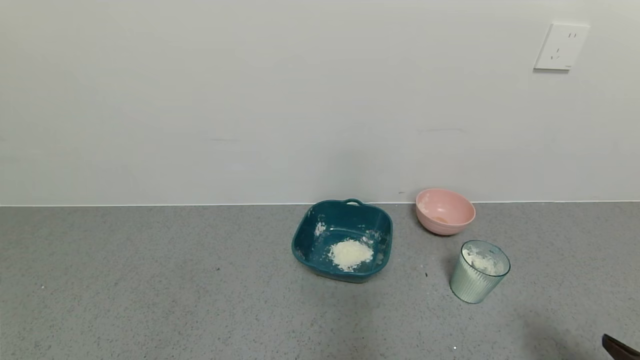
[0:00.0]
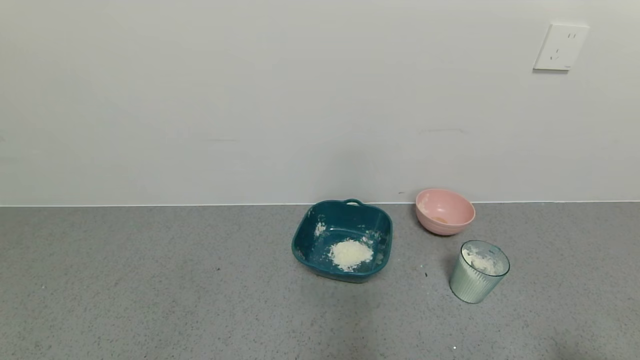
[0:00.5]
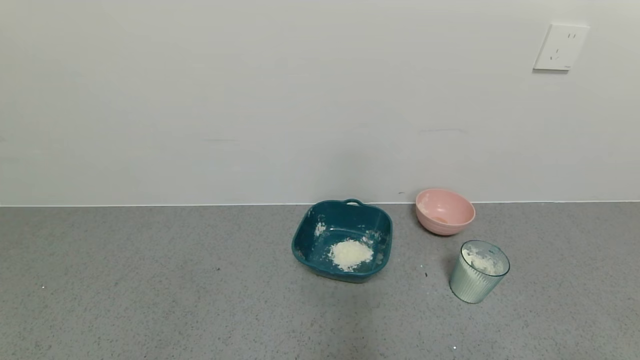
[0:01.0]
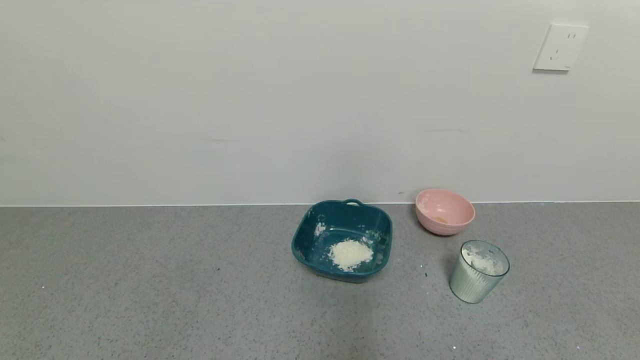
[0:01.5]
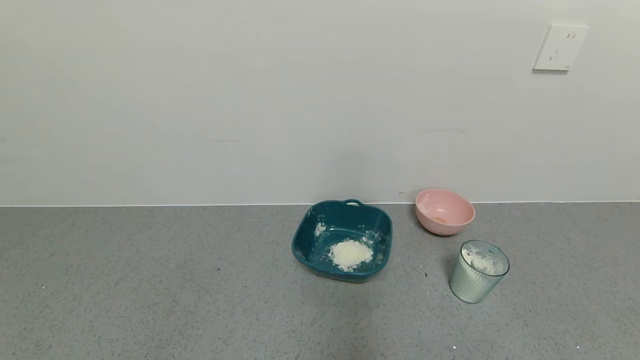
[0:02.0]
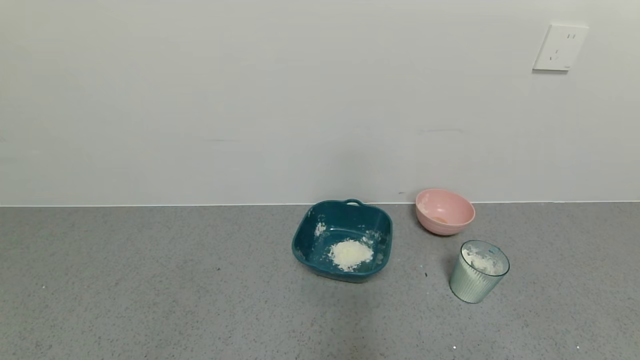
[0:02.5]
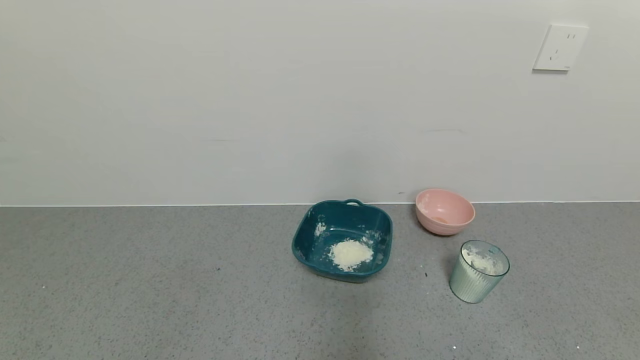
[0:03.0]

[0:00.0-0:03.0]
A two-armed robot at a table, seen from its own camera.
Task of the whole recording: use a gripper to pick up the cup and pour the powder into a bowl or tray.
0:00.0 to 0:01.5: The right gripper goes roughly 10 cm backward.
